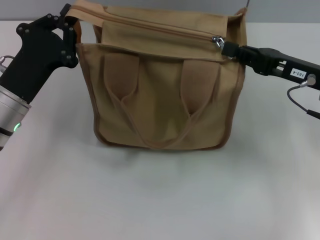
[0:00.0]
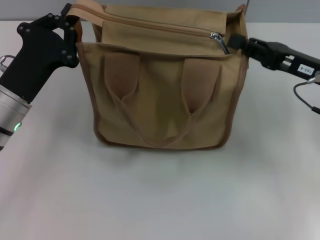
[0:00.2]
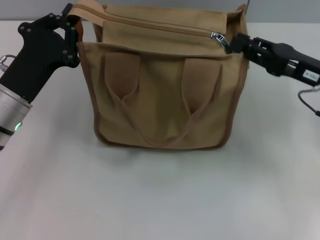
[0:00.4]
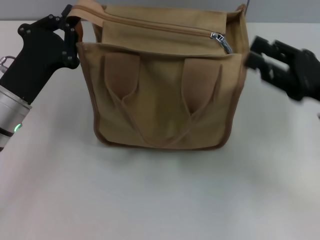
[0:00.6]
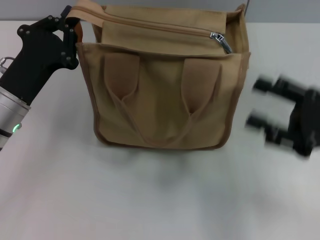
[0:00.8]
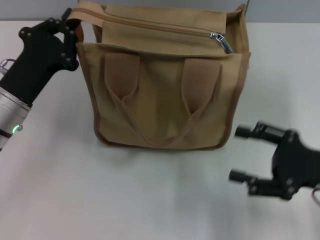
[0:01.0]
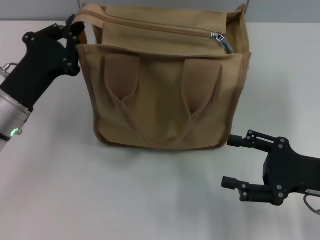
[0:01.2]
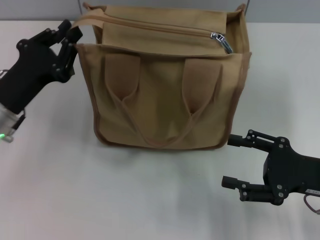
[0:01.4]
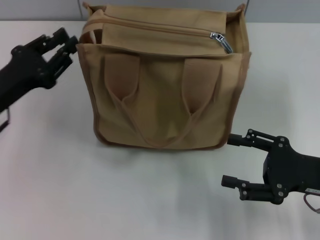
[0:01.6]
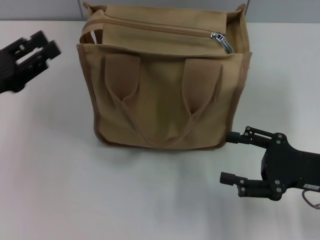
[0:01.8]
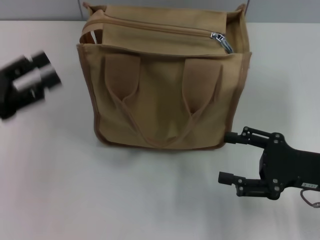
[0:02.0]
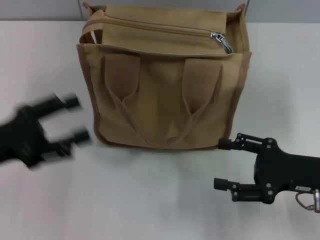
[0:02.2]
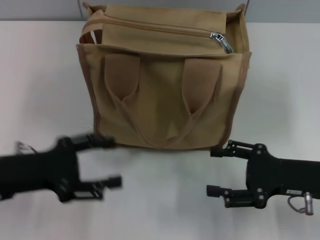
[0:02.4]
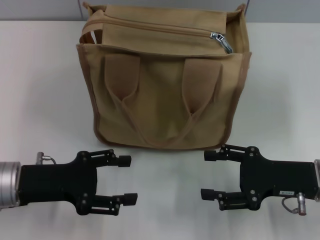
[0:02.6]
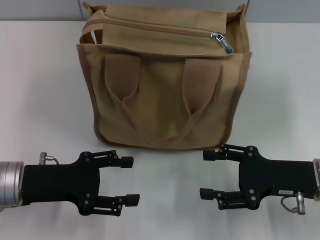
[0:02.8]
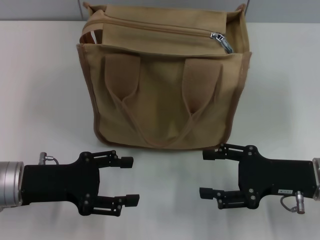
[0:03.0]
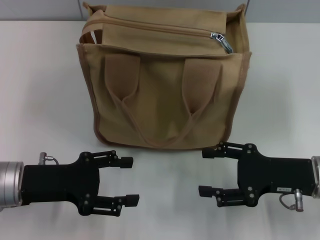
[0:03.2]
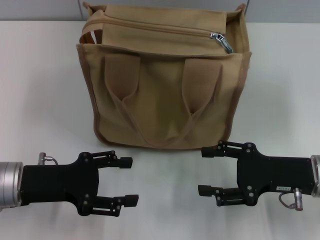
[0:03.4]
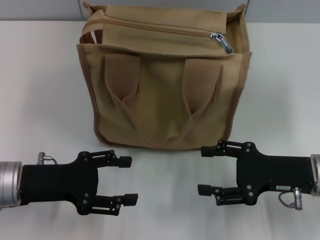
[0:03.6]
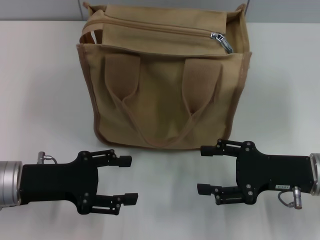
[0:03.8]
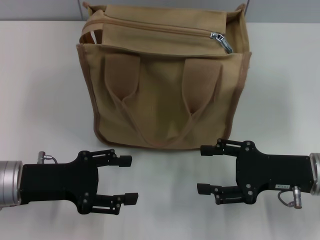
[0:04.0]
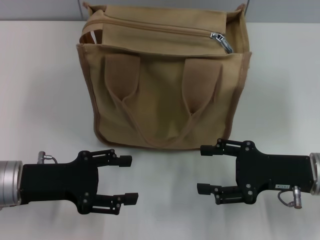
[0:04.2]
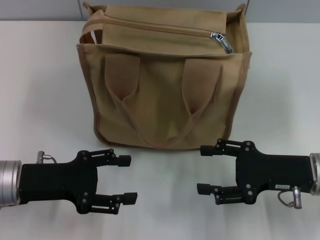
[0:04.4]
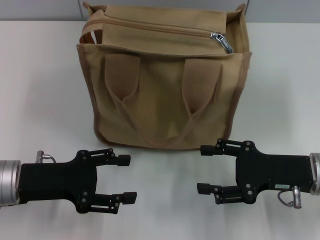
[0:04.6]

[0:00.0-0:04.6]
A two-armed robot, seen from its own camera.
Step, 0:00.4 to 0:01.4: Grab the zipper with your left hand.
0:00.0 to 0:01.6: The right gripper travels backward and downward by roughly 10 cm, and opens up, while the left gripper shifts some 5 cm to the left.
0:01.6 to 0:03.0: The left gripper shifts by roughly 5 cm, and opens its fingers.
0:03.0 to 0:04.6: The two grippers keep their place.
